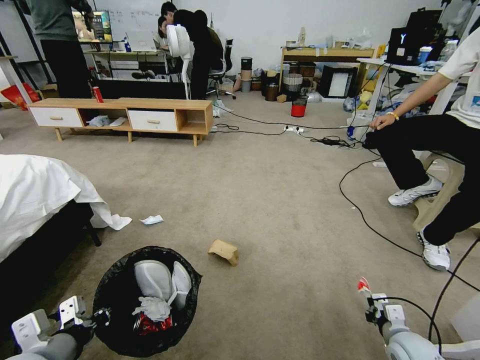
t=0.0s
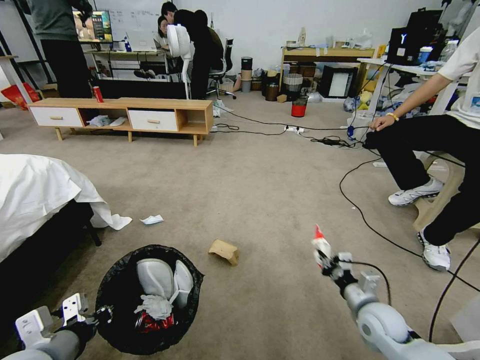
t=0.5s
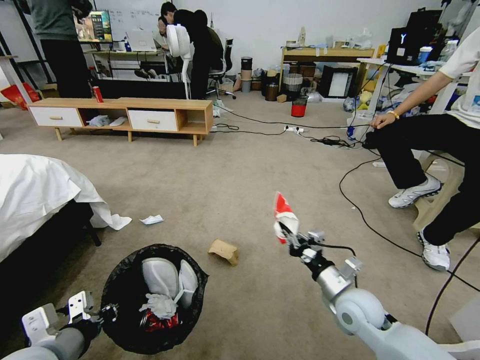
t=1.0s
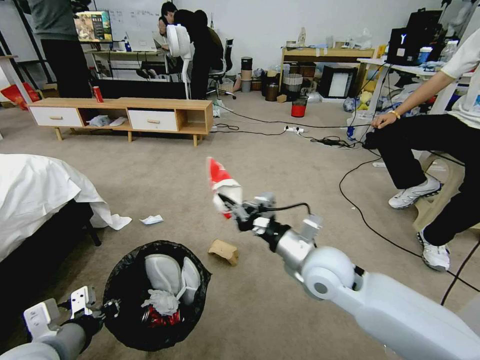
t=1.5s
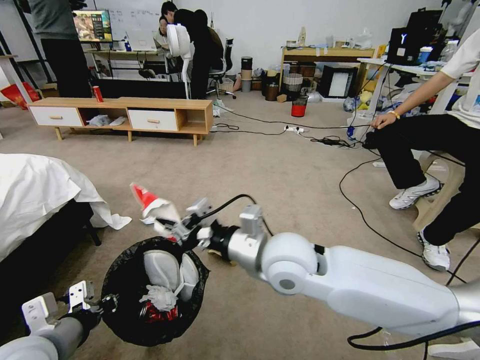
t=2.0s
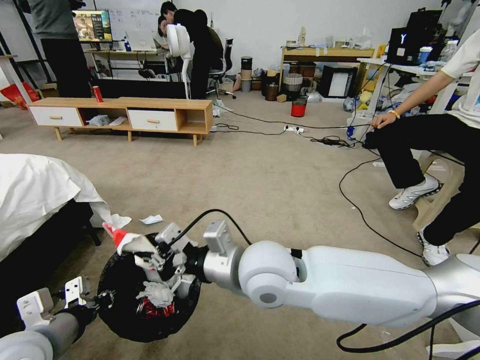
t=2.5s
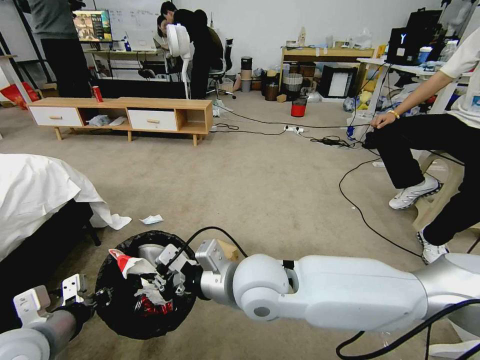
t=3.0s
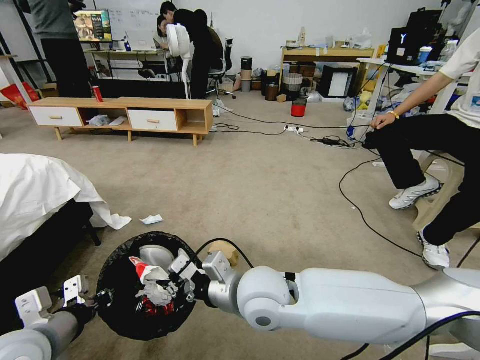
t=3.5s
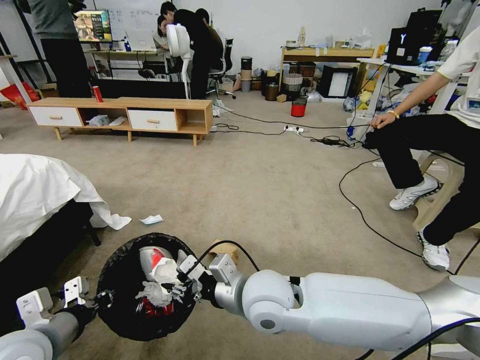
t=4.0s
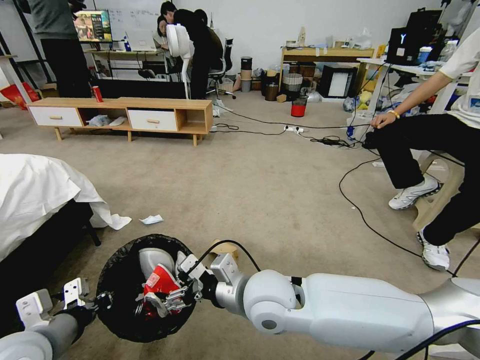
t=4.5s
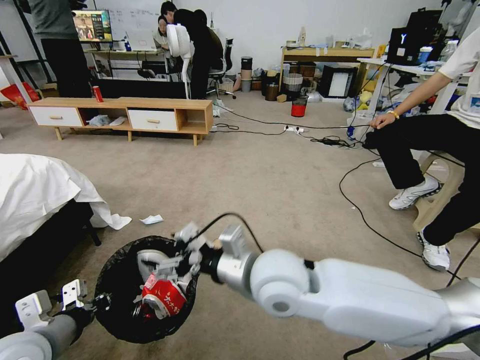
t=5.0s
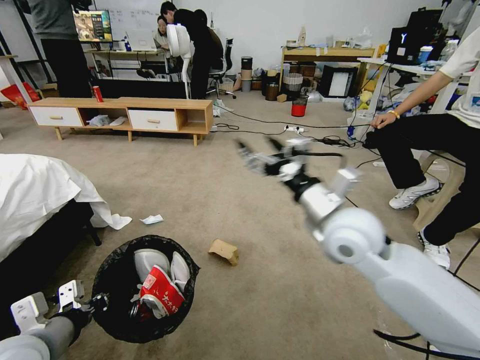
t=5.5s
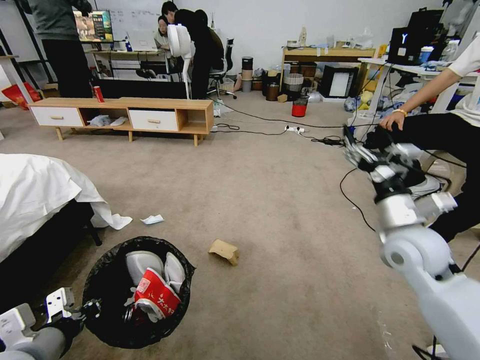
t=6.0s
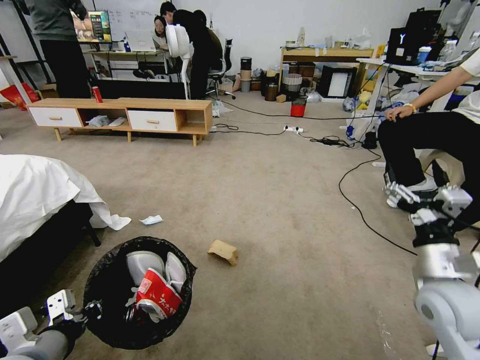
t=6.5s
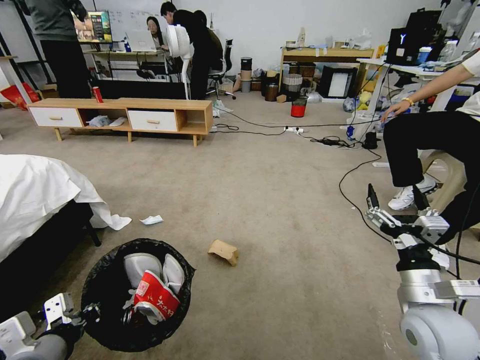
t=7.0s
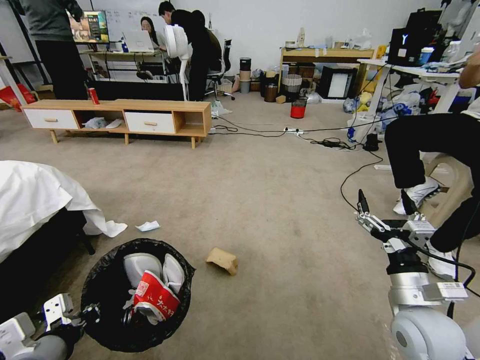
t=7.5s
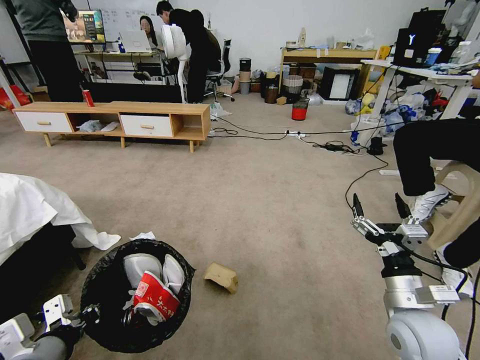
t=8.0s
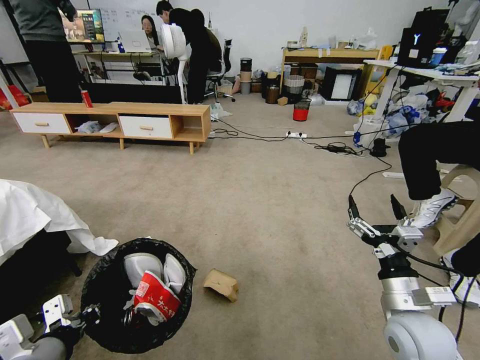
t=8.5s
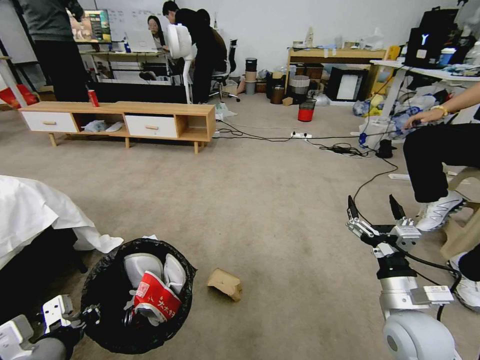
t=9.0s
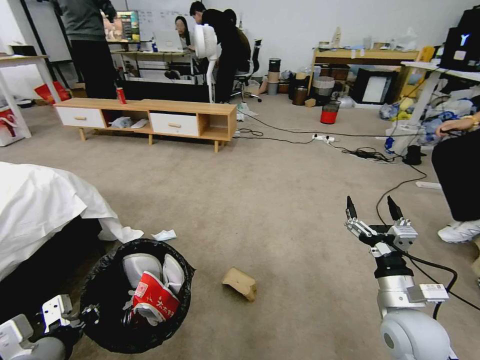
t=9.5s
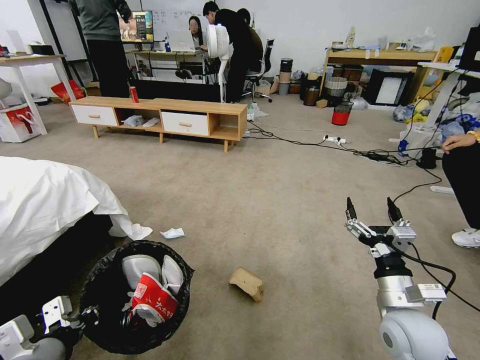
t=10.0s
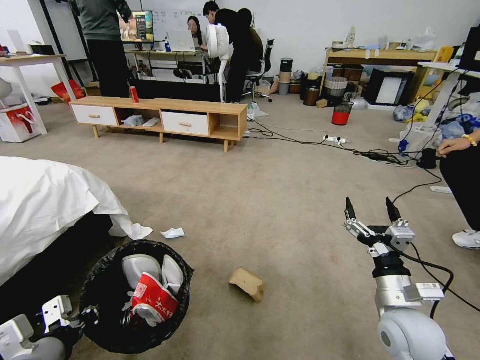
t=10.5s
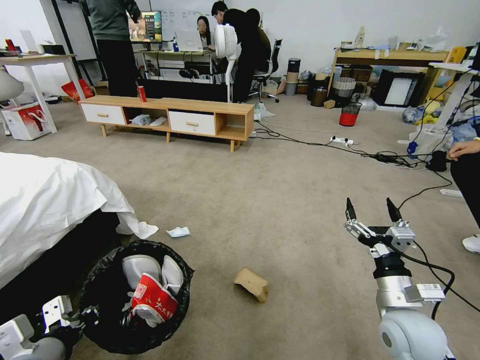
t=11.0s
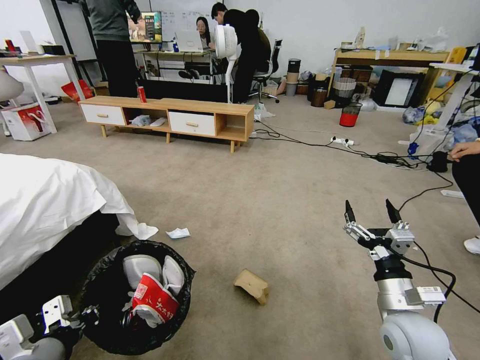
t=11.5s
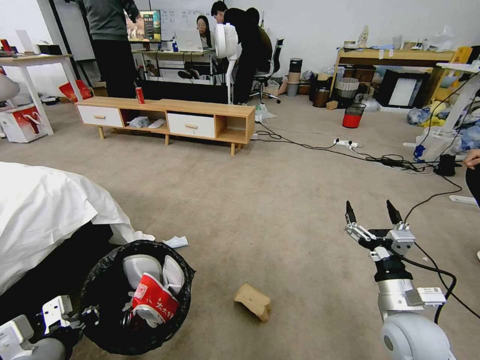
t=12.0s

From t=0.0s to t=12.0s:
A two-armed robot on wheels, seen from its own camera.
Task of the whole recording: Pick up the trash bin and place the garbage on the floor into it.
From t=0.0s to t=2.0s: The right gripper travels to the left and upward by some 50 cm.
From t=2.0s to t=4.0s: The right gripper travels downward by approximately 5 cm.
From t=4.0s to t=6.0s: The right gripper goes approximately 30 cm to the right, and opens its fingers.
From t=6.0s to t=8.0s: The right gripper is displaced downward and backward by approximately 15 cm.

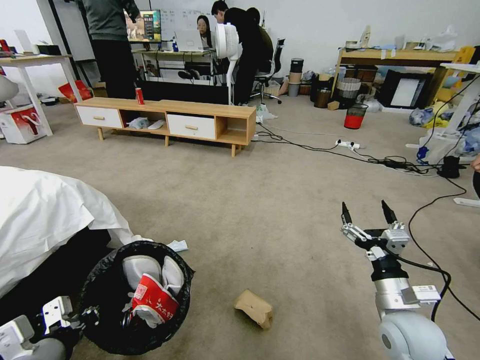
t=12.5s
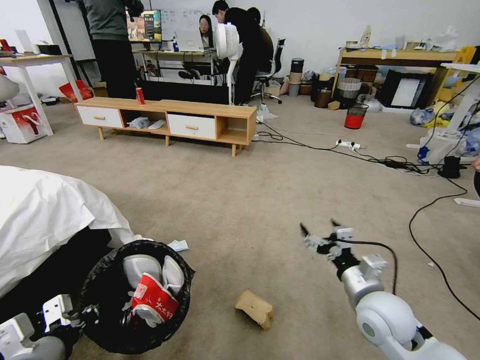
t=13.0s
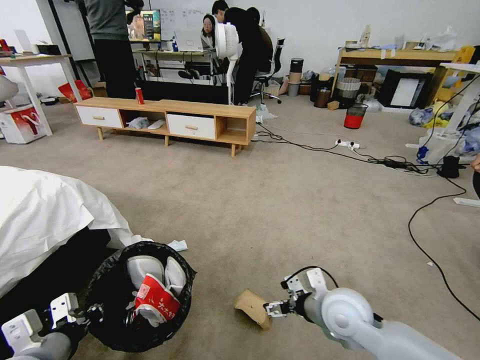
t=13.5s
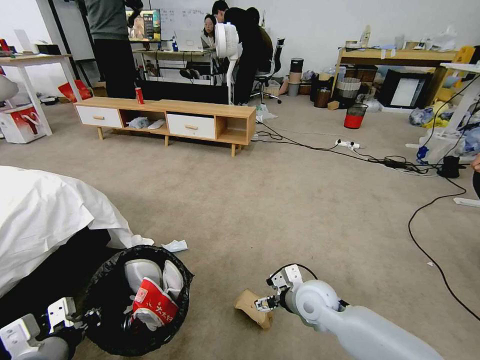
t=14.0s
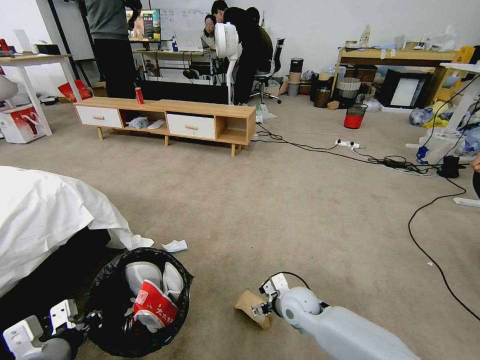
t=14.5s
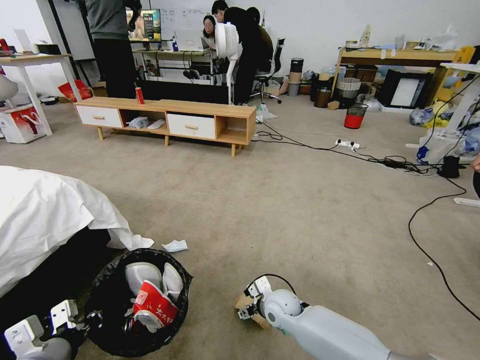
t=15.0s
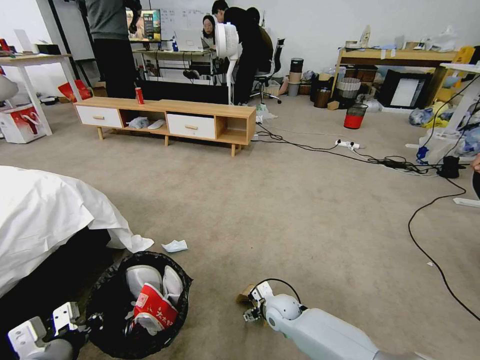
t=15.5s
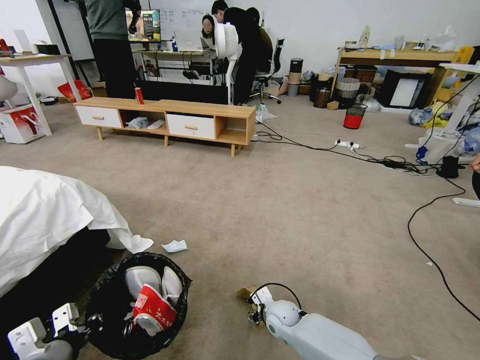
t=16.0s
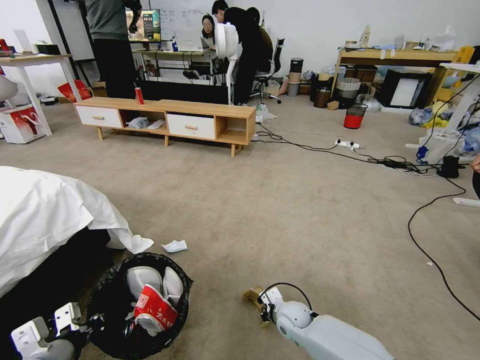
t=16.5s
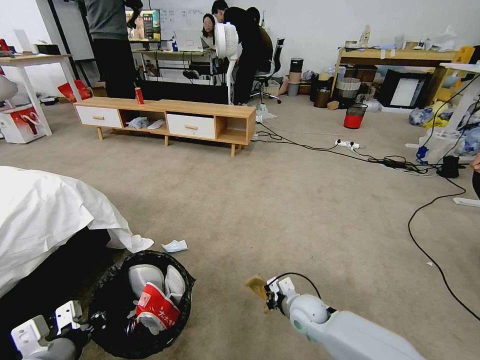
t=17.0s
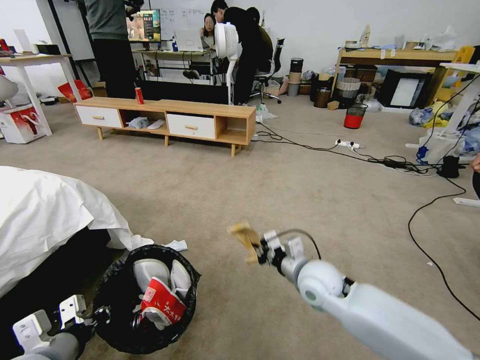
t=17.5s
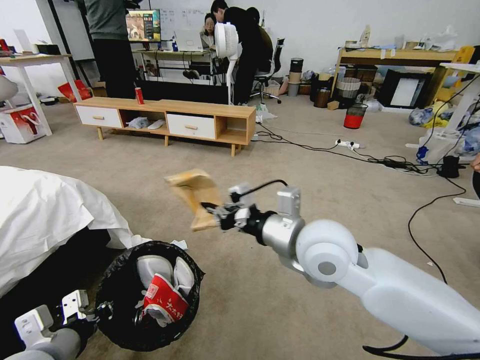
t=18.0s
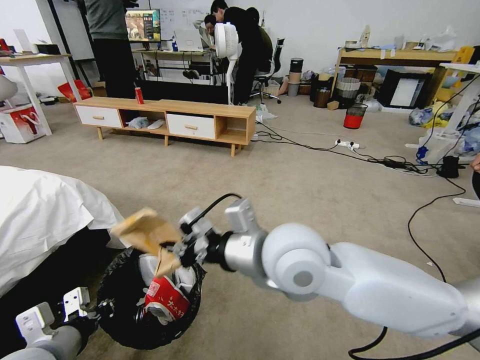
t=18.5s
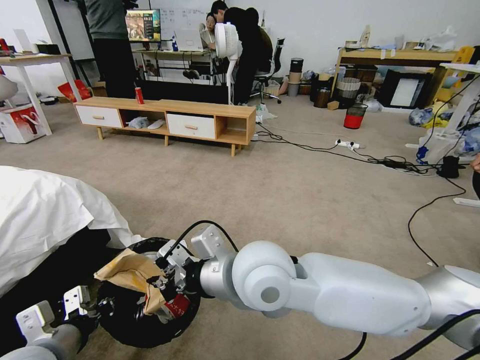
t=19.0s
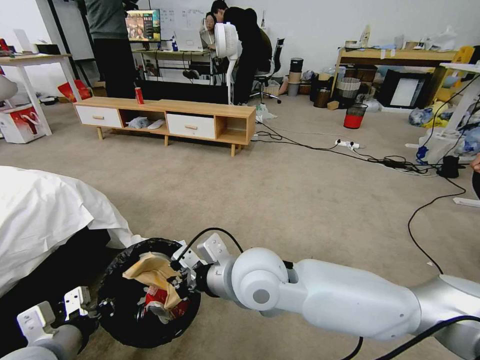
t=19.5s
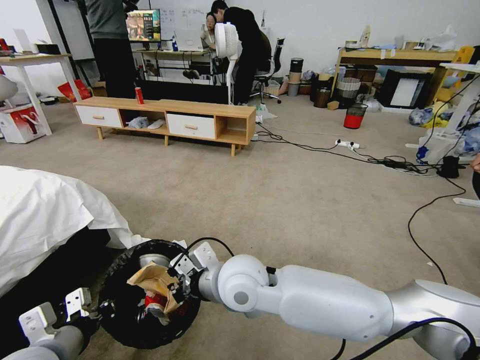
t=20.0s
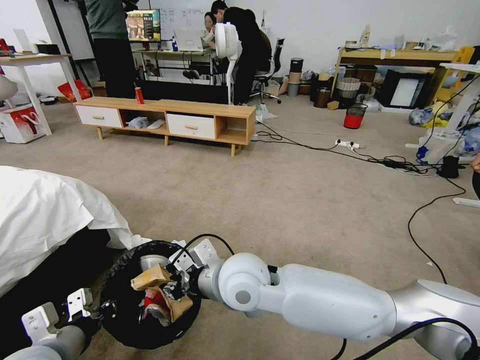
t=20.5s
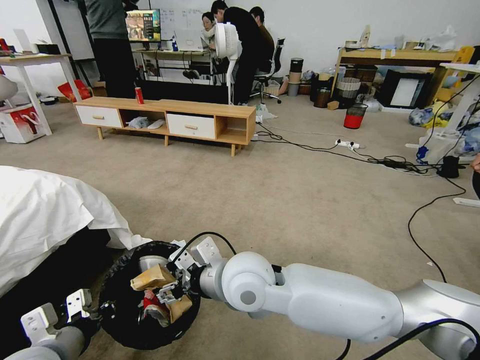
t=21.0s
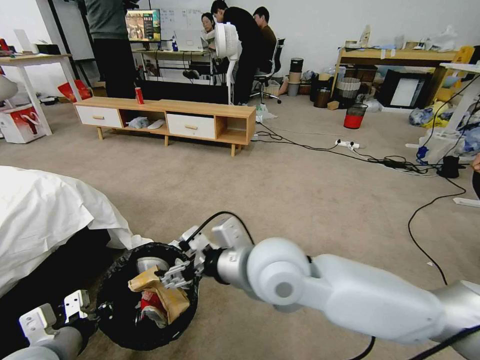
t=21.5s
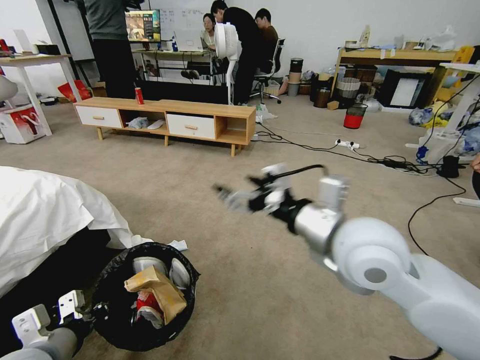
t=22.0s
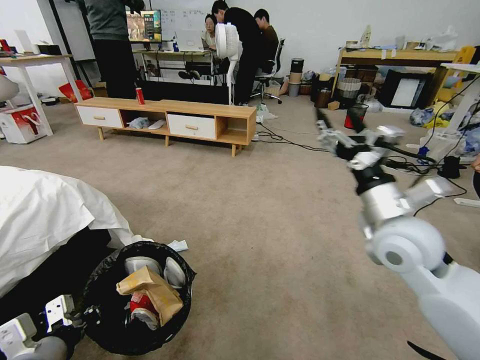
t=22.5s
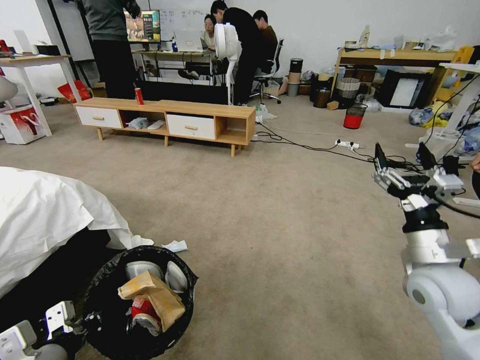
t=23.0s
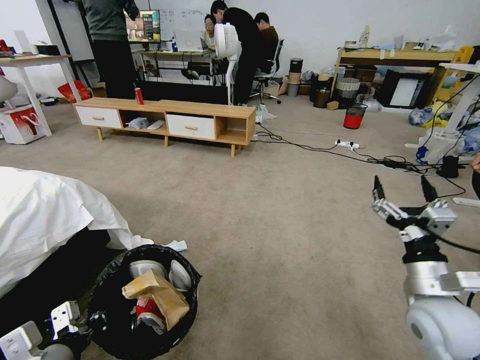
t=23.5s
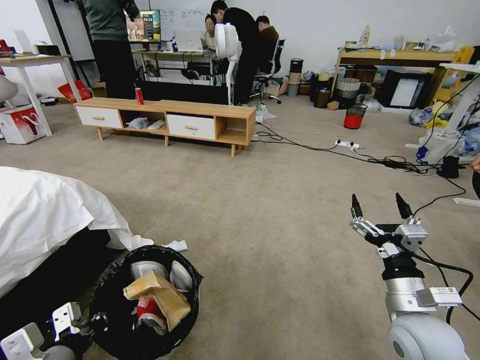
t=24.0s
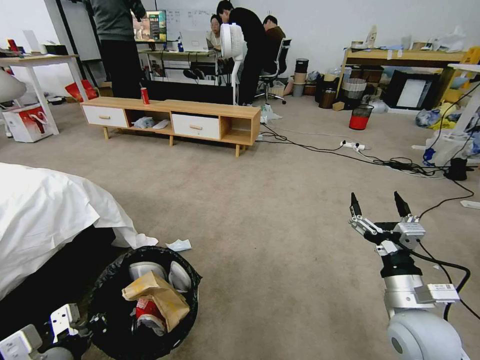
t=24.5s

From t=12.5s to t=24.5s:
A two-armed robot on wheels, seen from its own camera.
Task of the whole recording: Pick up the trash bin and place the garbage on the floor into it.
From t=12.5s to t=14.5s: The right gripper is displaced to the left, downward and forward by about 25 cm.
From t=14.5s to t=16.5s: The right gripper goes some 10 cm downward, and closes up.
From t=16.5s to t=18.5s: The right gripper goes some 40 cm upward.
From t=18.5s to t=20.5s: The right gripper moves downward and to the left, approximately 15 cm.
From t=20.5s to t=22.5s: The right gripper heads to the right, covering roughly 30 cm, and opens its fingers.
From t=22.5s to t=24.5s: The right gripper travels downward and backward by approximately 15 cm.

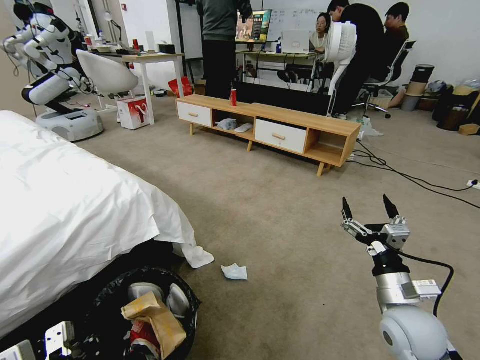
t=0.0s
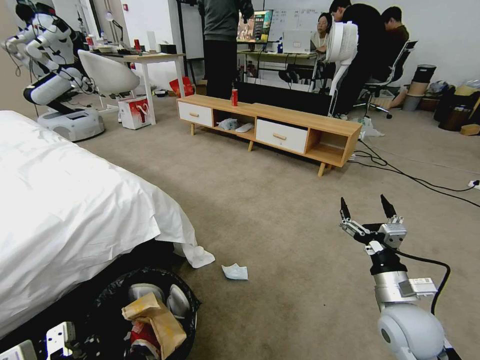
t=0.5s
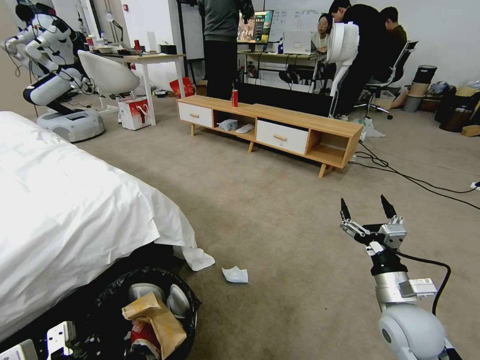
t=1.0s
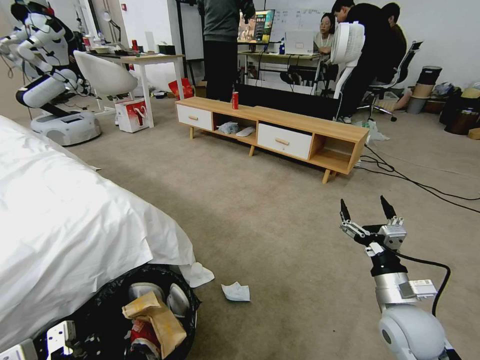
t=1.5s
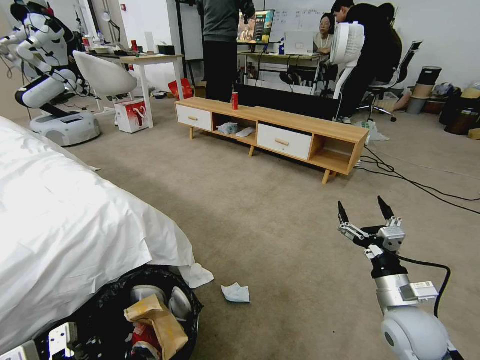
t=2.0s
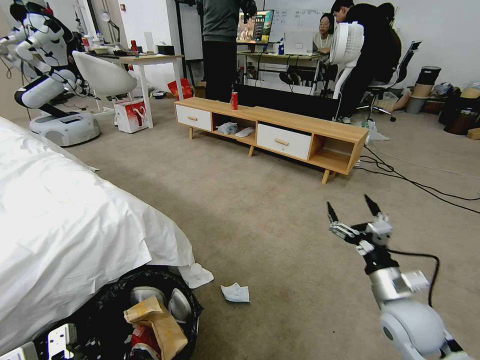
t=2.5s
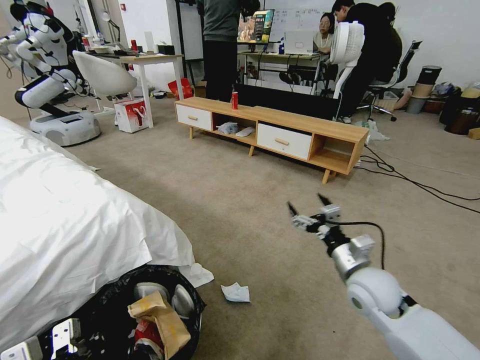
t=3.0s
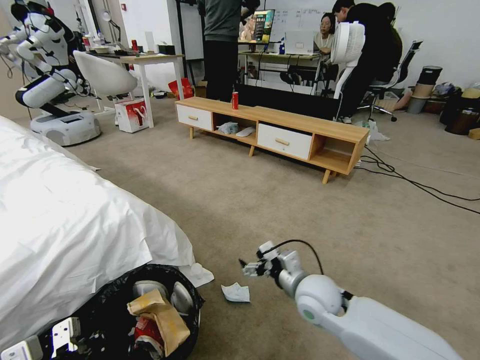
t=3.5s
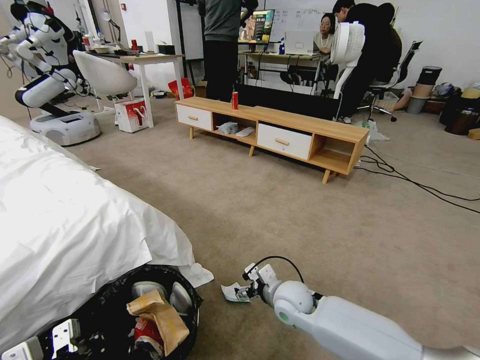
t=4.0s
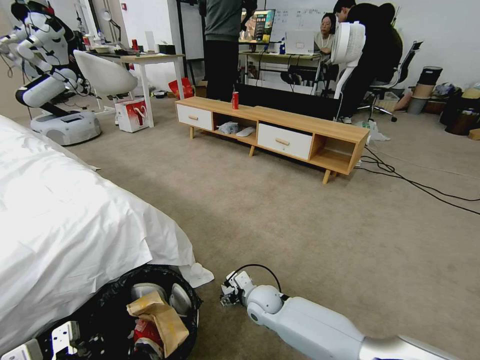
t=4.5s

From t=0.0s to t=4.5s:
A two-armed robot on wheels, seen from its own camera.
Task of the whole recording: Pick up the trash bin and place the garbage on the floor into it.
From t=2.0s to t=4.5s: The right gripper goes some 35 cm to the left, downward and forward.
